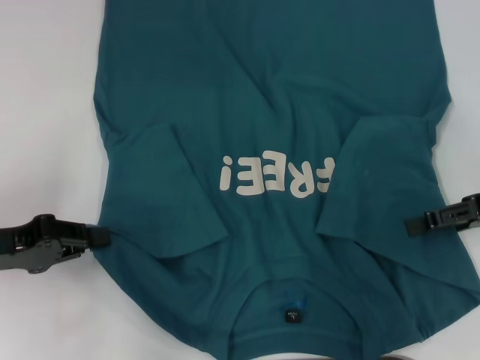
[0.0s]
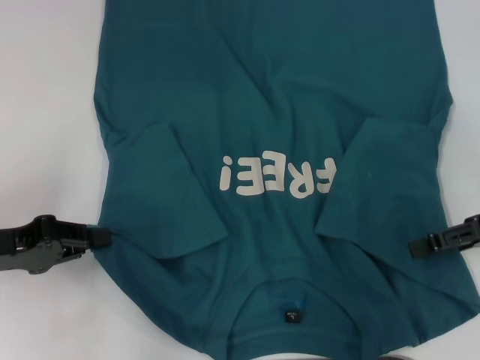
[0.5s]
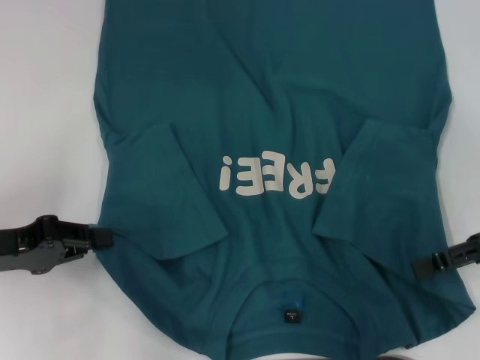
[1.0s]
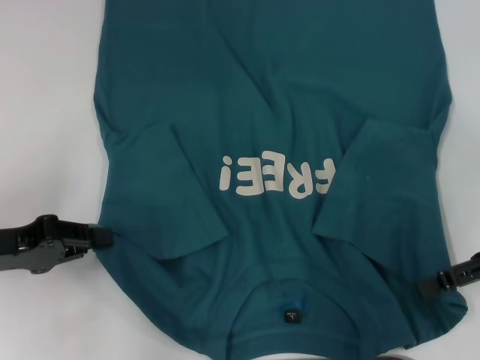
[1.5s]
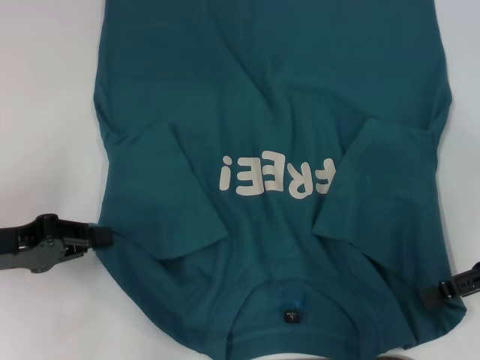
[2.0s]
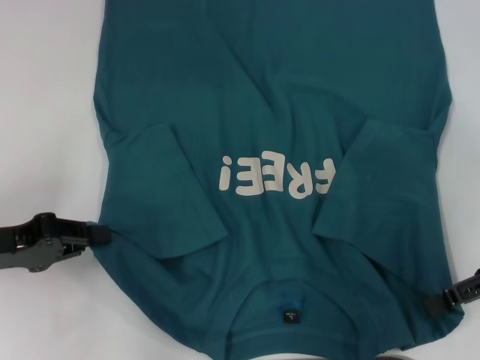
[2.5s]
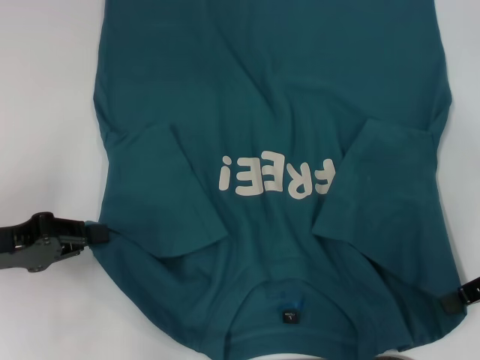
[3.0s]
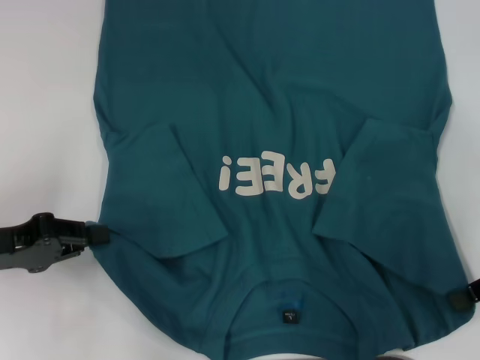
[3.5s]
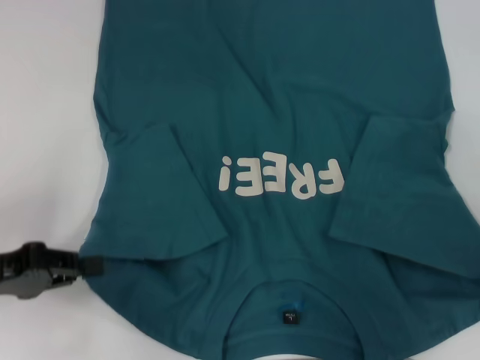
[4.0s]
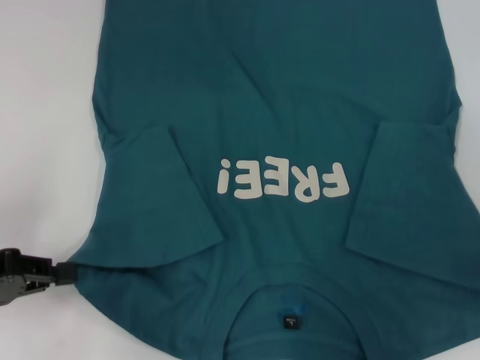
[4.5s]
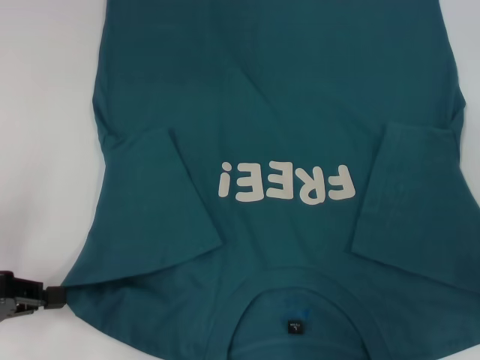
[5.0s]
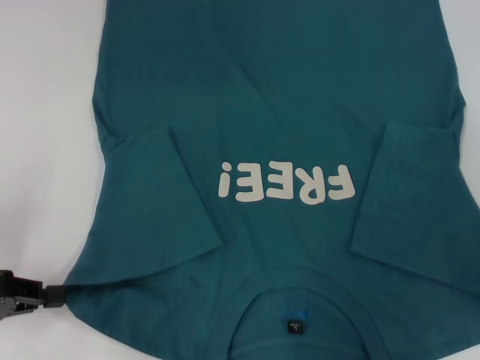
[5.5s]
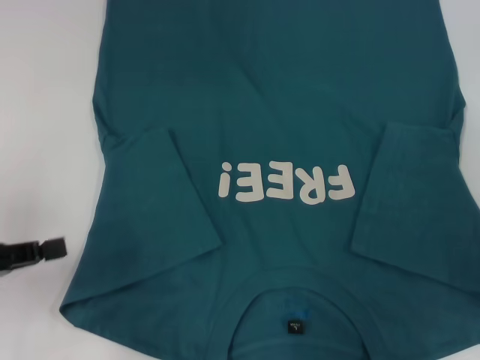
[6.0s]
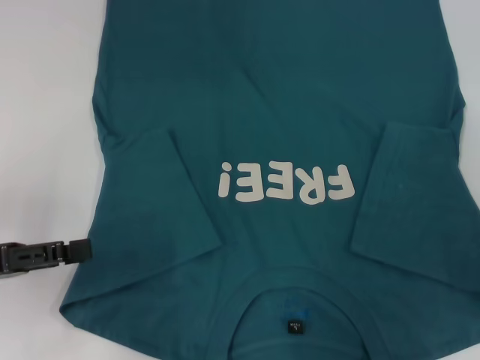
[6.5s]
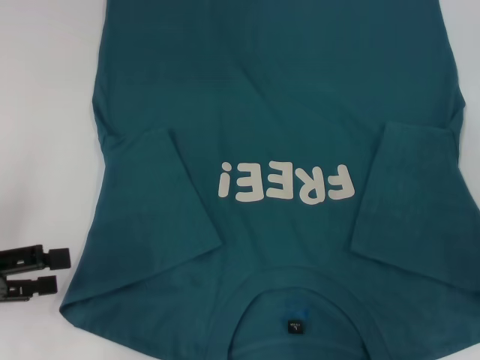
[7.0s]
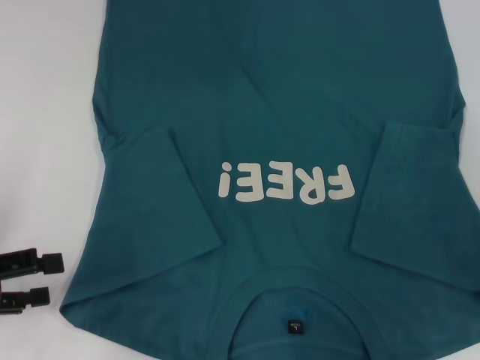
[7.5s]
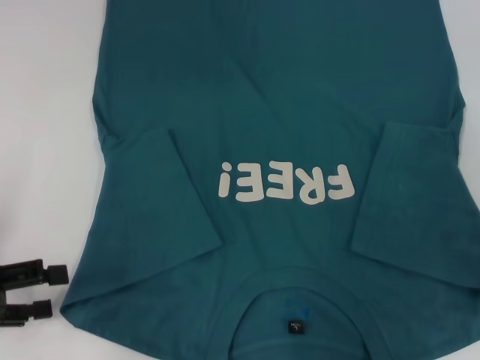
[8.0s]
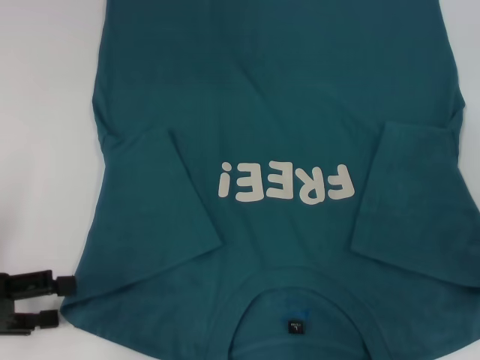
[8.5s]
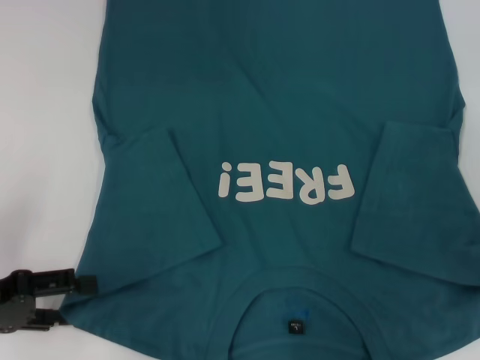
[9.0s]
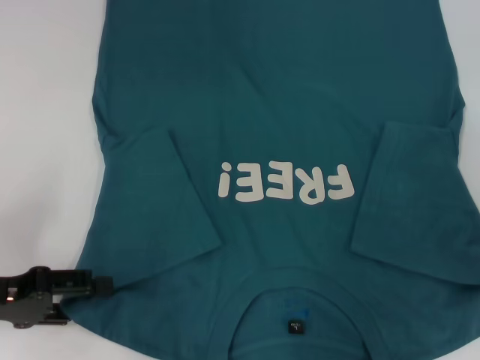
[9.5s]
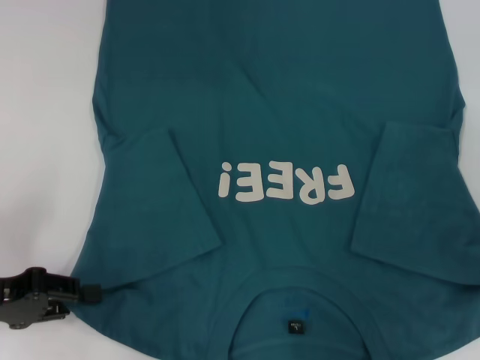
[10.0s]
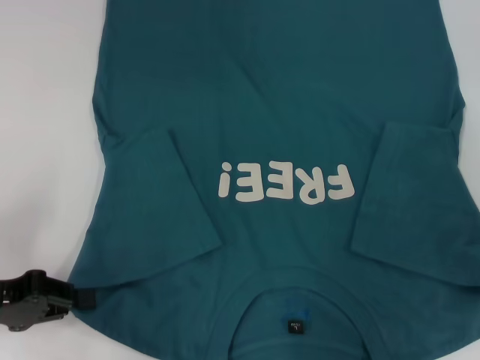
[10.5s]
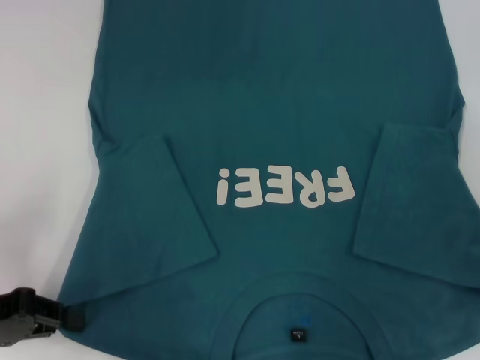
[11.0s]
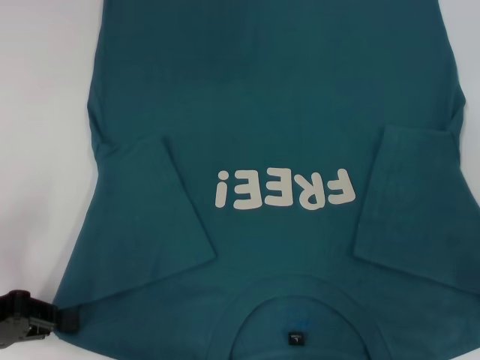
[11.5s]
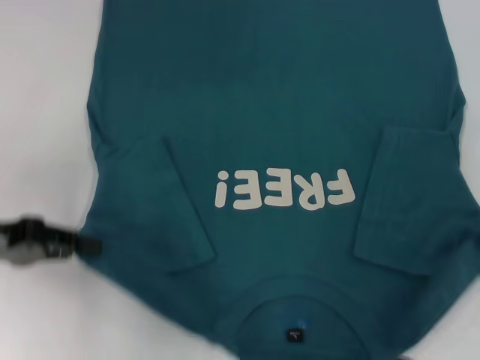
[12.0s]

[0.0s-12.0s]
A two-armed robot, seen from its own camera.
Step, 0.0s to 3.5s: Grab the bottom right corner with your right hand.
0.0s to 2.0s: There are only small adjustments of the grippers.
2.0s to 4.0s: The right gripper closes its fingers.
4.0s to 6.0s: The grippers stay close to where they were, moving slightly.
6.0s to 8.0s: The left gripper opens up.
8.0s to 10.0s: The left gripper closes up.
10.0s to 12.0s: The left gripper ends up roughly 5 cm from where it was, and closes.

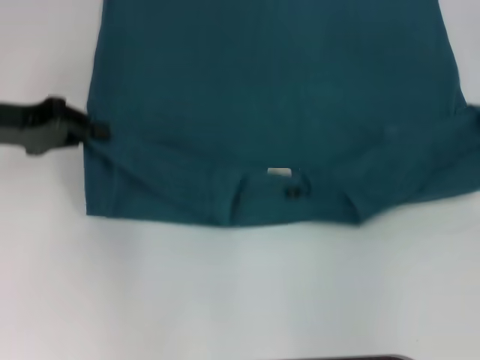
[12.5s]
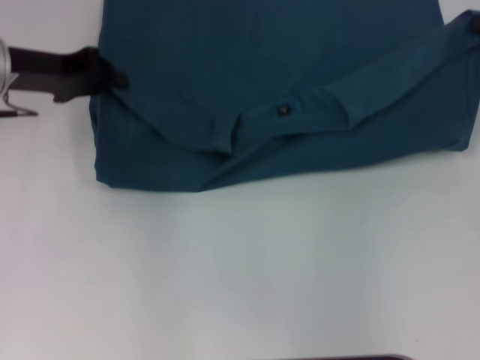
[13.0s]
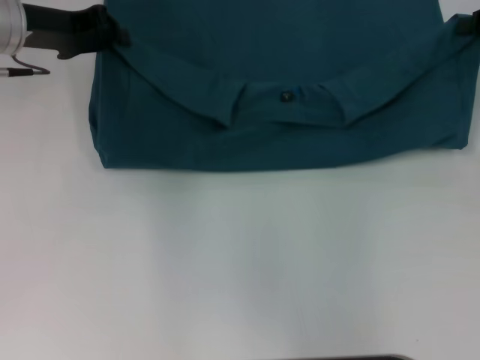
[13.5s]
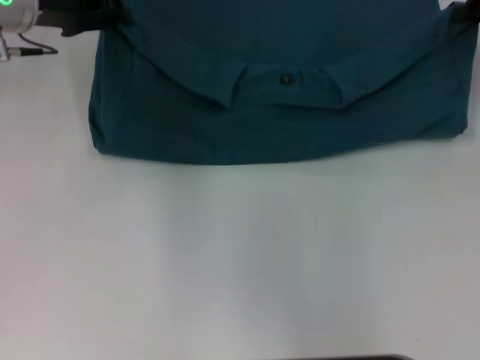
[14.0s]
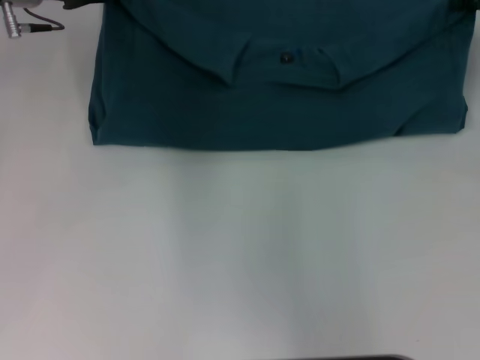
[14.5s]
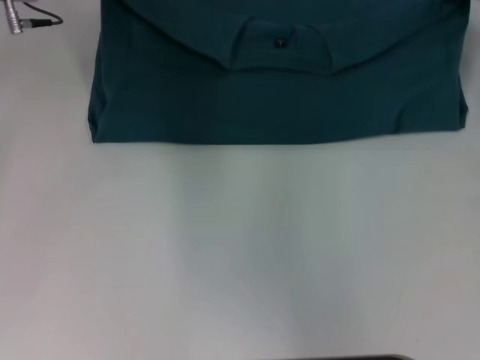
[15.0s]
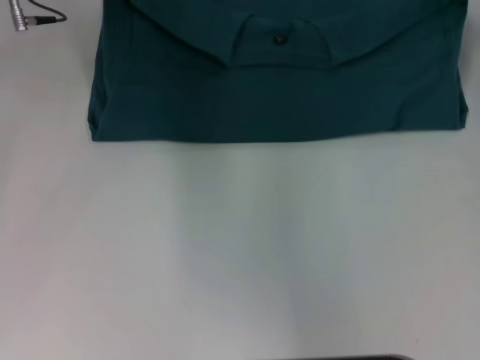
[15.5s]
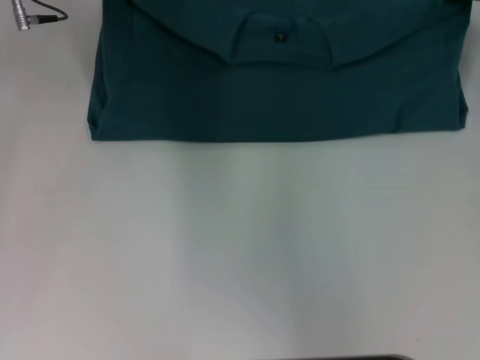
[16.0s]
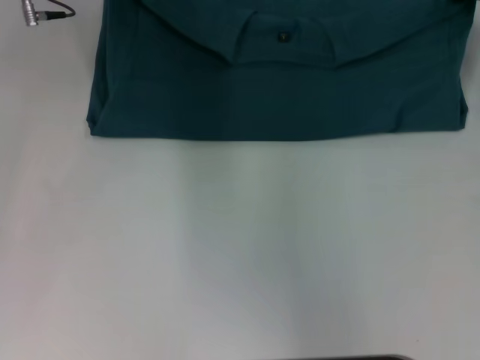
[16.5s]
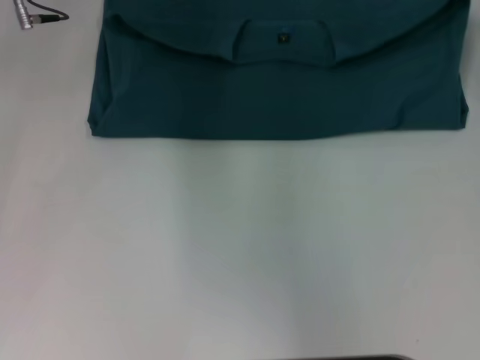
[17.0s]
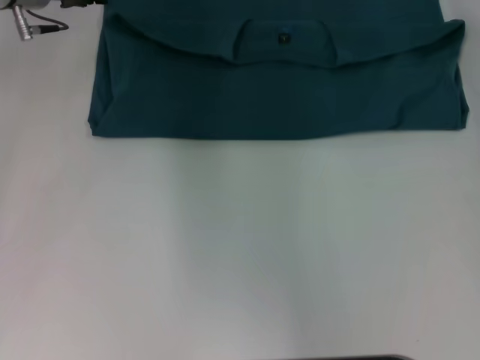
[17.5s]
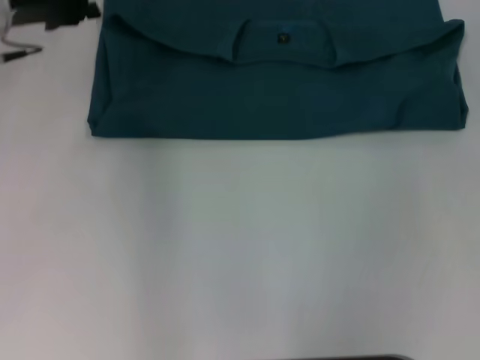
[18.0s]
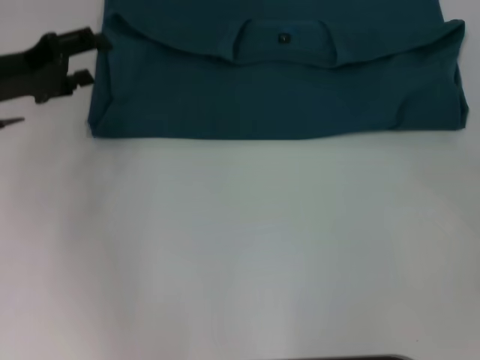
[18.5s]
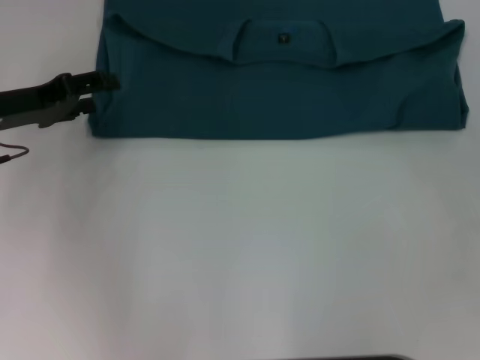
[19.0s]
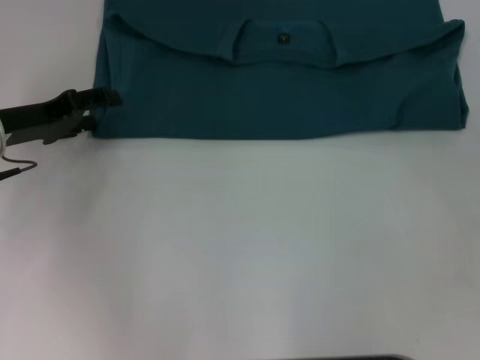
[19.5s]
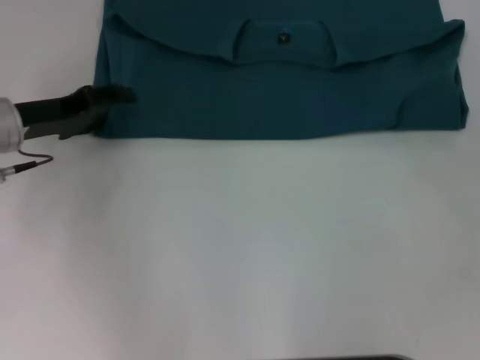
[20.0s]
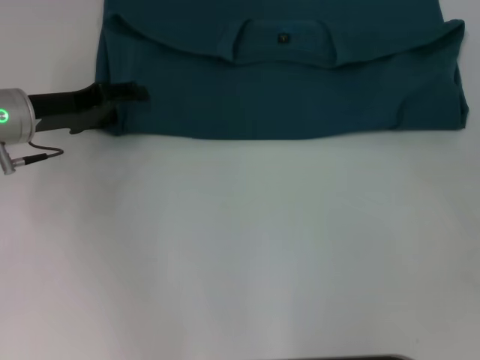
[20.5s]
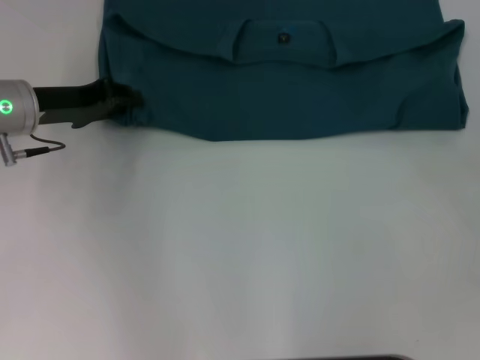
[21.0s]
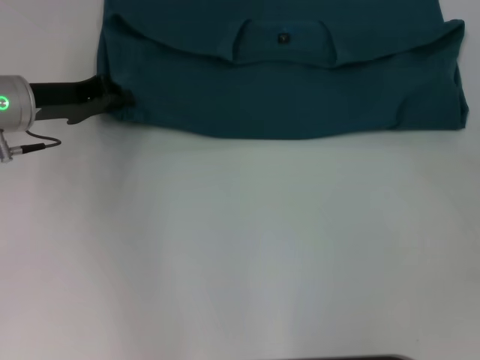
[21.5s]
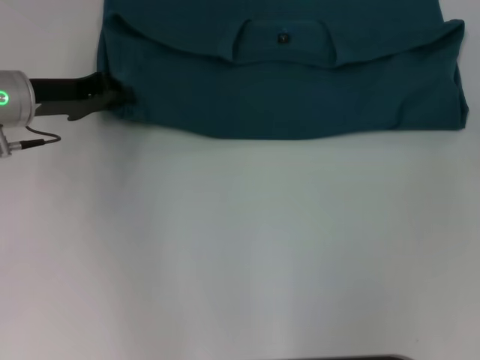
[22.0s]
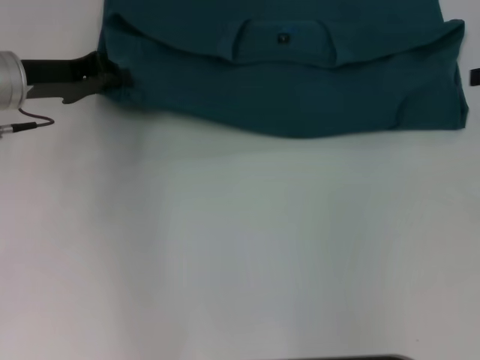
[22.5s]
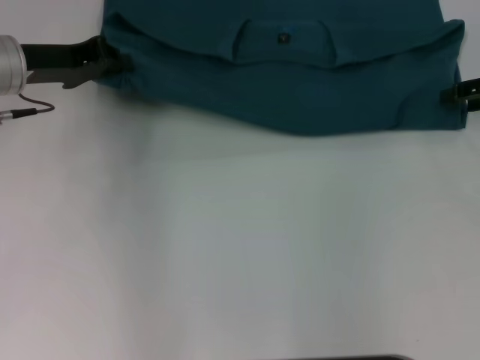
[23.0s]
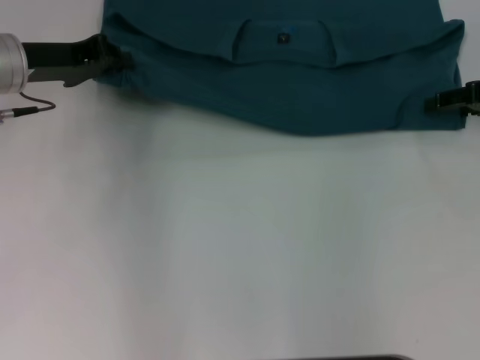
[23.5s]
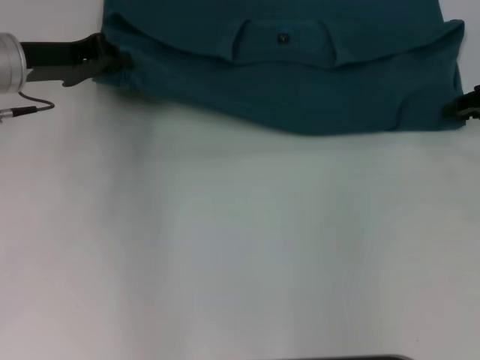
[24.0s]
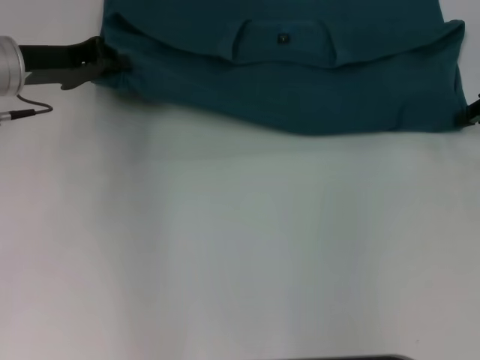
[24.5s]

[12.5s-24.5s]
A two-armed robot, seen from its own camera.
Step, 12.5s to 17.5s: Fold the clothes to the left.
Step, 12.5s to 17.5s: Fold the clothes to the right.
12.5s to 14.5s: The right gripper shifts about 10 cm forward; the left gripper moves forward and to the right, approximately 15 cm.
14.5s to 16.5s: The grippers move only a little.
16.5s to 18.5s: The right gripper travels backward and to the right by about 20 cm, and opens its fingers; the left gripper shifts some 15 cm backward, to the left and downward, and opens its fingers.
18.5s to 20.5s: There are only small adjustments of the grippers.
20.5s to 22.5s: The left gripper closes; the right gripper is displaced forward by approximately 5 cm.
22.5s to 24.5s: The right gripper moves approximately 5 cm, and closes.

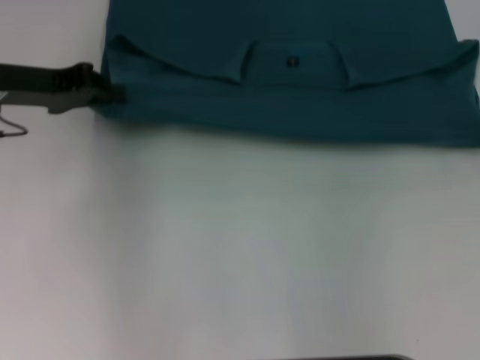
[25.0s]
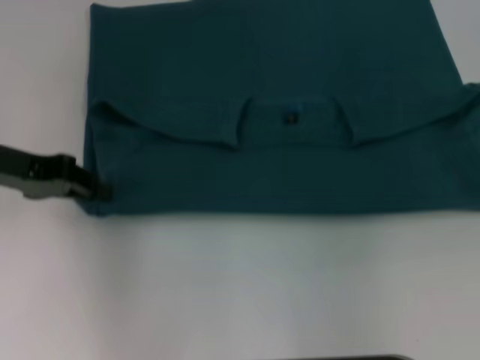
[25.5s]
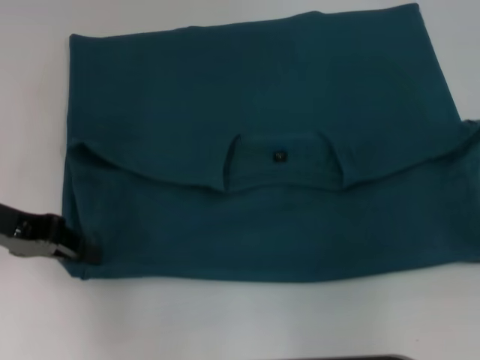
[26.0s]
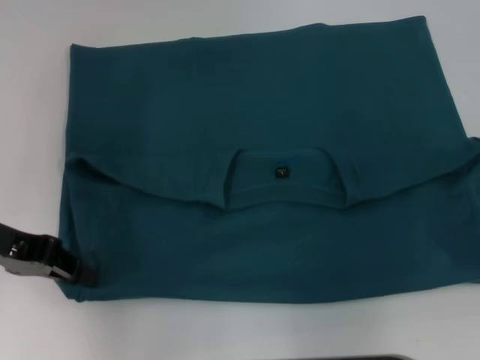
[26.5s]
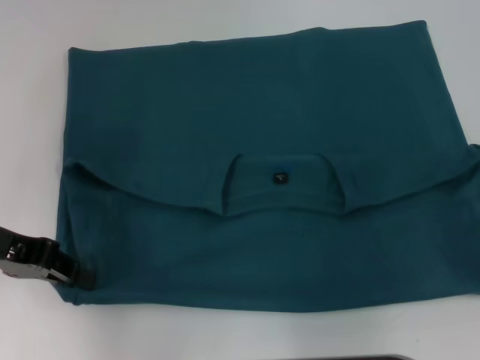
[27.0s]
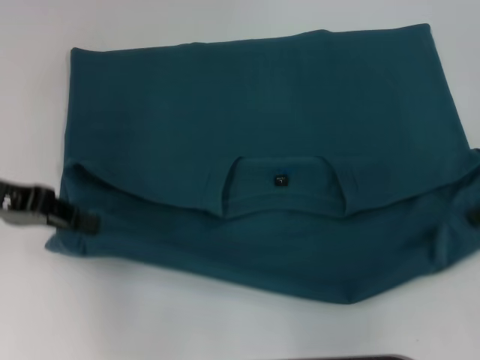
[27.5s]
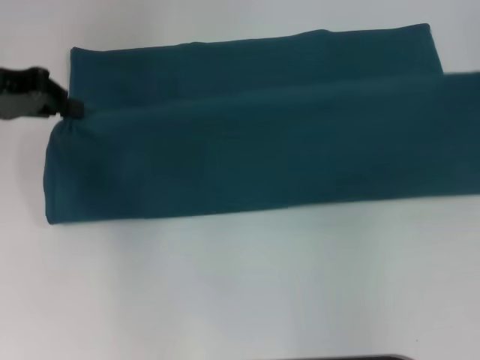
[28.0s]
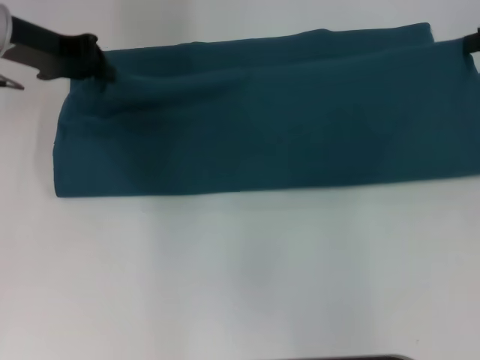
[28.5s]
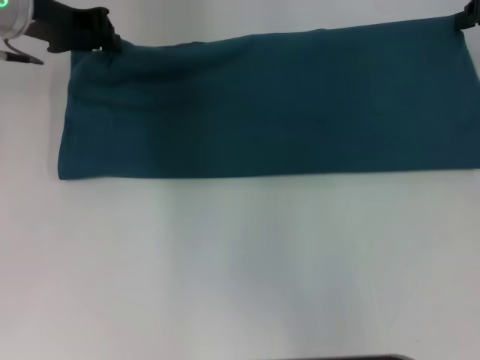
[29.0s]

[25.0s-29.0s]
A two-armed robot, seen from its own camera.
25.0s to 27.0s: The two grippers go some 10 cm backward.
27.0s to 29.0s: The left gripper shifts approximately 15 cm forward and to the right. The right gripper moves forward, approximately 15 cm.
